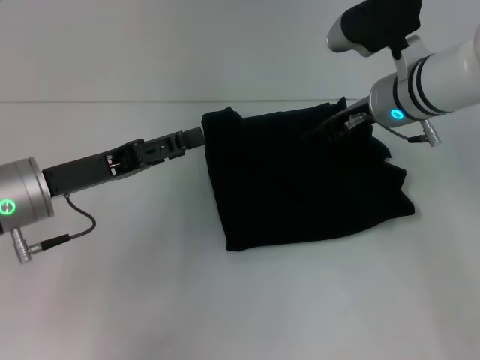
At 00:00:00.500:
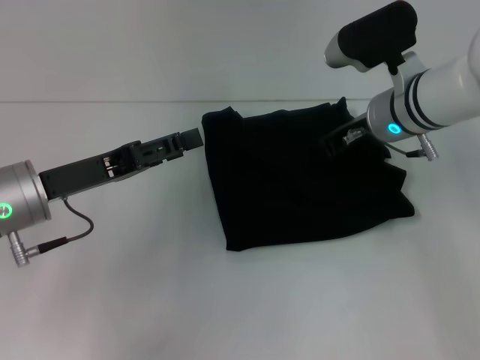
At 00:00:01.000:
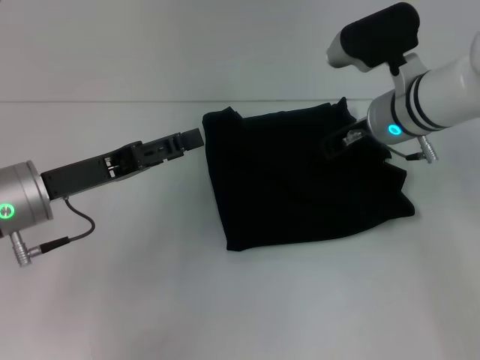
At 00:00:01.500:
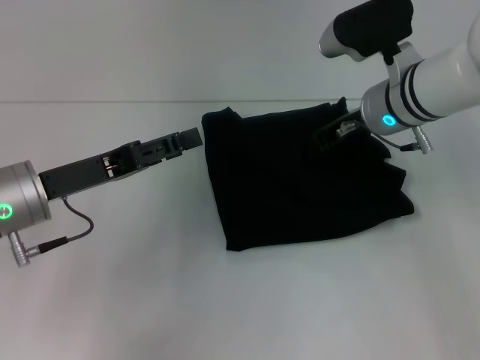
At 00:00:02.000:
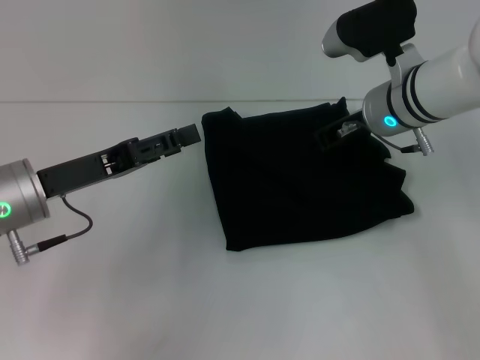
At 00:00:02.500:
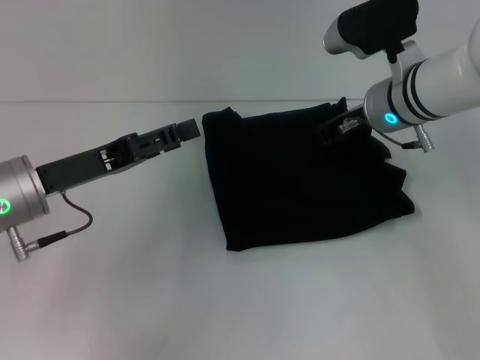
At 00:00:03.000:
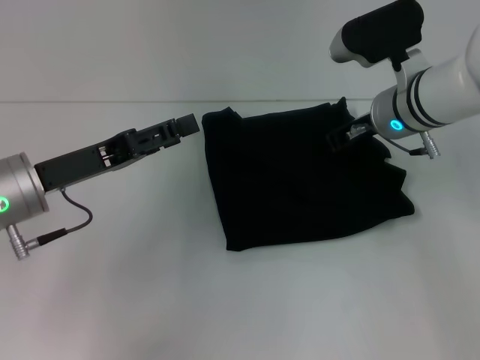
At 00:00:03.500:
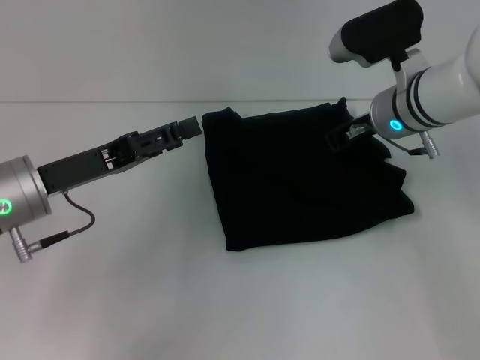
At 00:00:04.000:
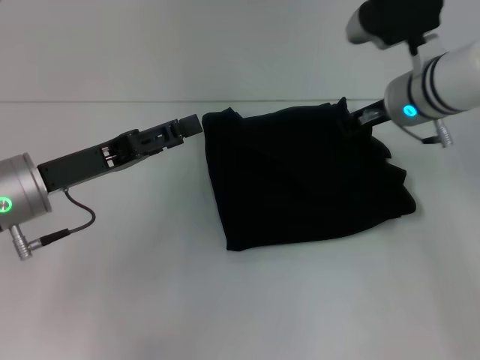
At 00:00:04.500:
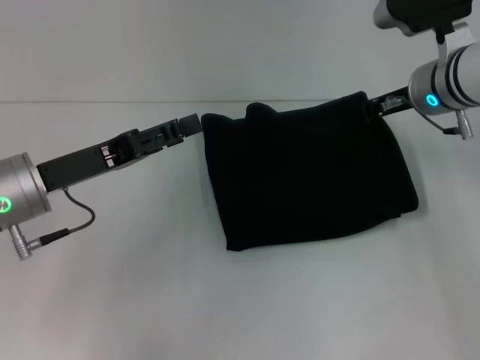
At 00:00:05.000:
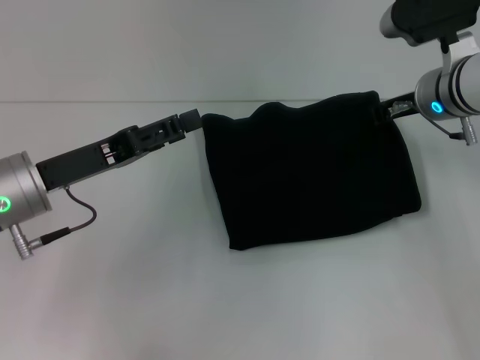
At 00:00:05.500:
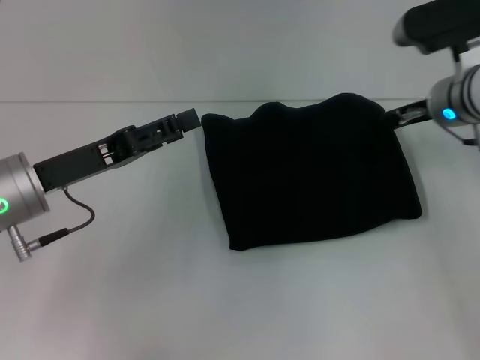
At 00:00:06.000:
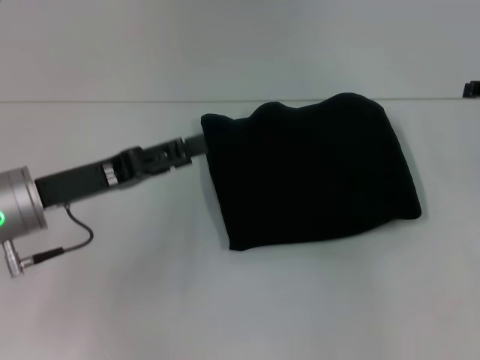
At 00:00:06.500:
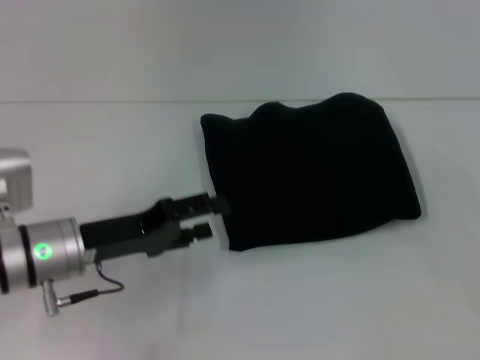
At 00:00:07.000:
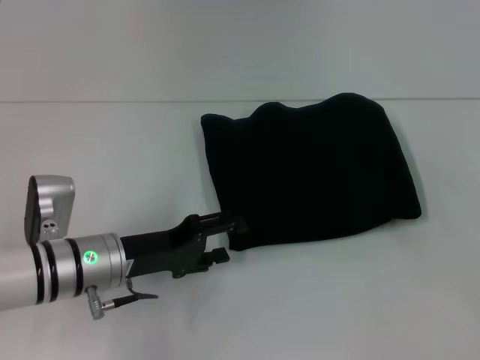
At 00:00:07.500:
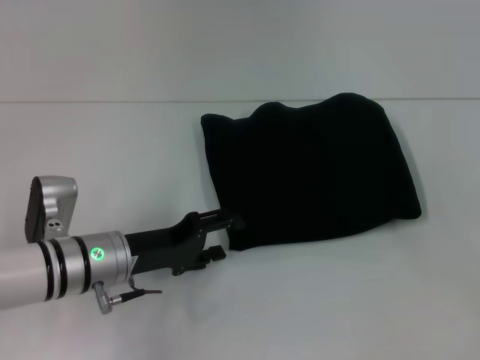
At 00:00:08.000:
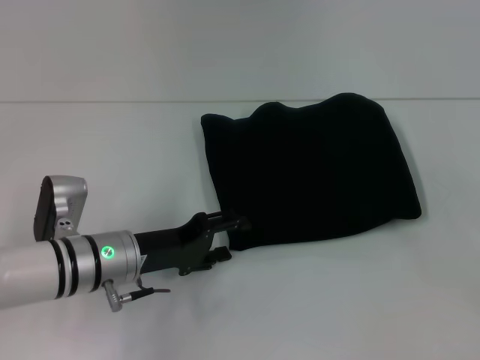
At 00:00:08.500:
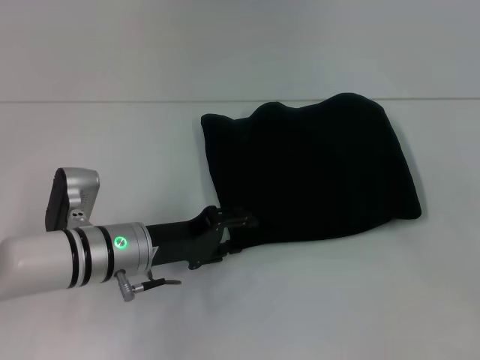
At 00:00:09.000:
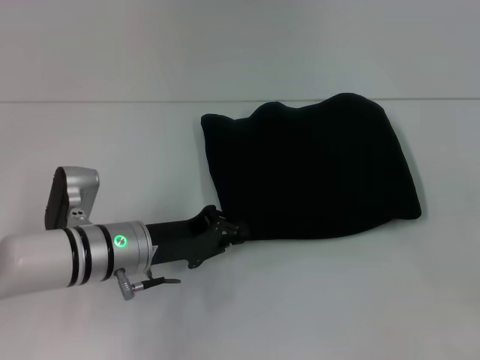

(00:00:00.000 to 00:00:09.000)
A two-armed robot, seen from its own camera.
00:00:00.000 - 00:00:02.000: The grippers make only small movements.
00:00:02.000 - 00:00:04.500: The right gripper closes up.
00:00:04.500 - 00:00:07.000: The right gripper is displaced to the right and backward by about 25 cm, and opens. The left gripper travels downward and to the right by some 10 cm.
00:00:07.000 - 00:00:09.000: The left gripper closes up.

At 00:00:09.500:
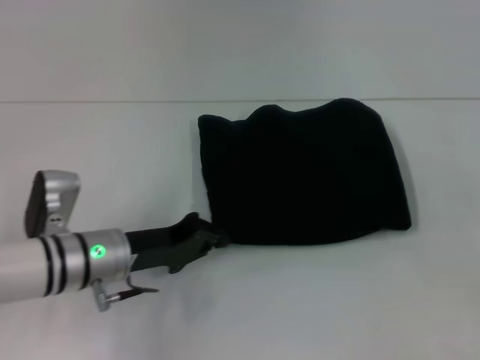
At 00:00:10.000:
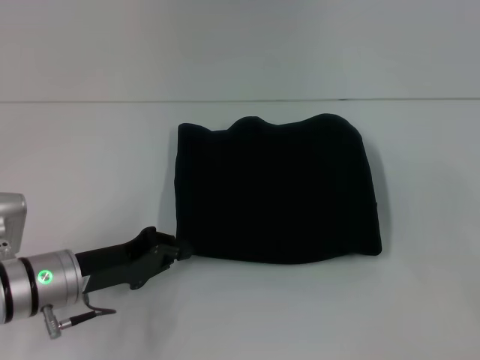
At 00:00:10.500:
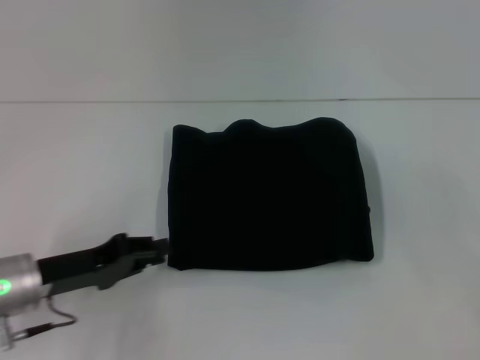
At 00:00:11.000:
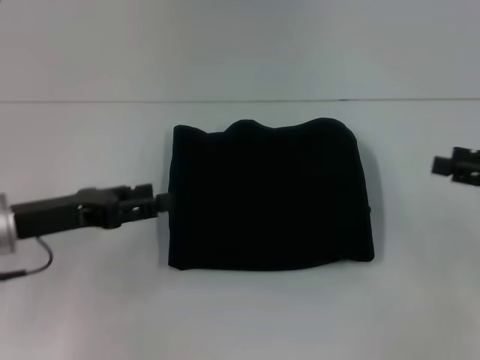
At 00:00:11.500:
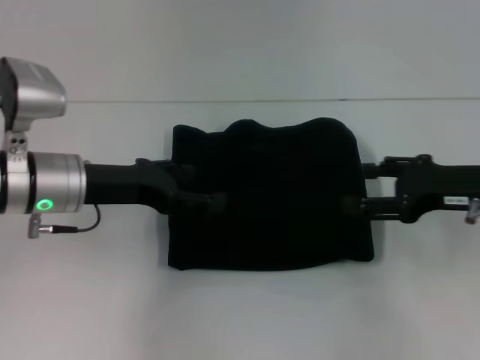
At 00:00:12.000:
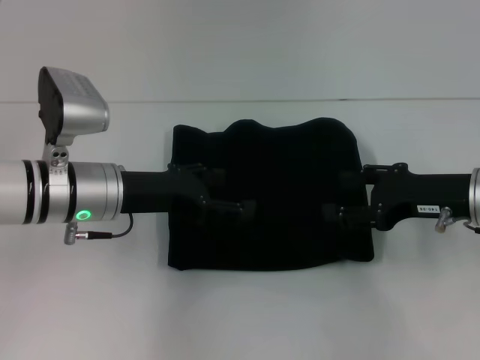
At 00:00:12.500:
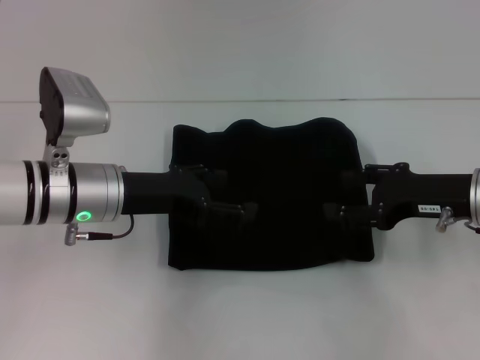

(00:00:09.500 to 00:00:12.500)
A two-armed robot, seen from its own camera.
00:00:09.500 - 00:00:11.000: The left gripper moves to the left and upward, some 10 cm, and opens.
00:00:11.000 - 00:00:12.500: The left gripper travels to the right and forward by about 10 cm, and opens. Meanwhile the right gripper travels to the left by roughly 10 cm.
